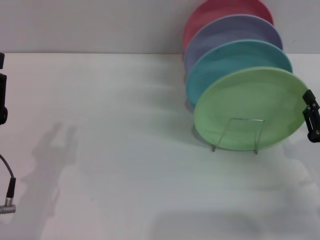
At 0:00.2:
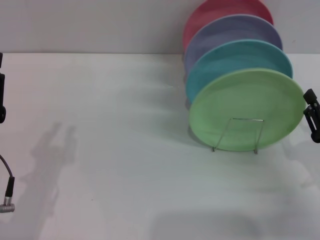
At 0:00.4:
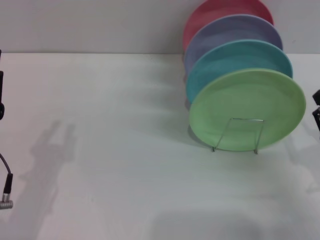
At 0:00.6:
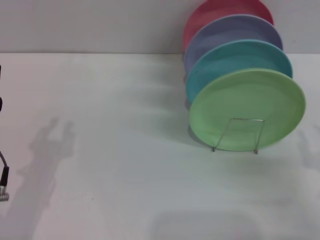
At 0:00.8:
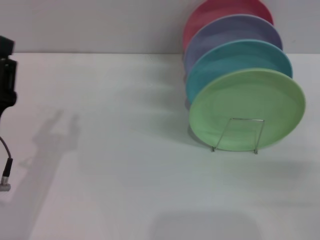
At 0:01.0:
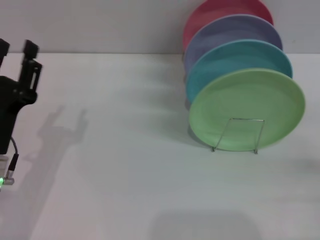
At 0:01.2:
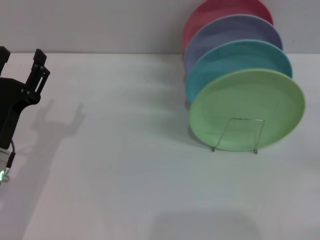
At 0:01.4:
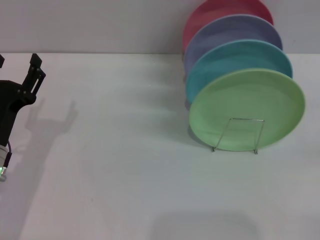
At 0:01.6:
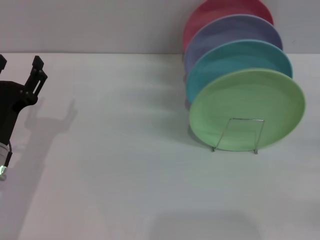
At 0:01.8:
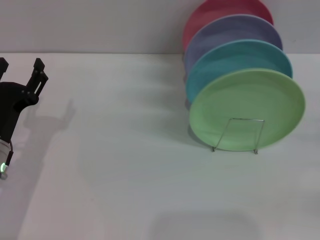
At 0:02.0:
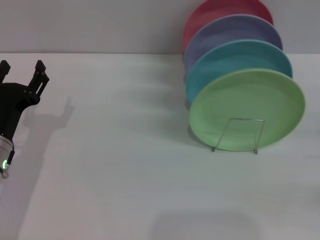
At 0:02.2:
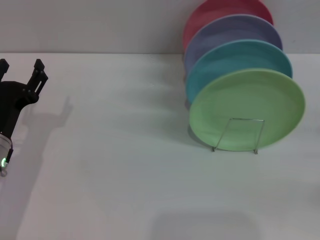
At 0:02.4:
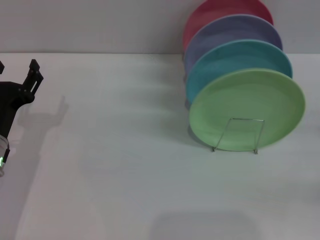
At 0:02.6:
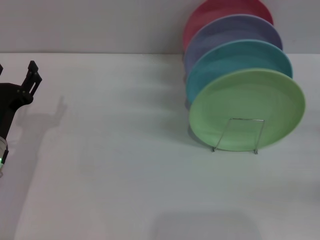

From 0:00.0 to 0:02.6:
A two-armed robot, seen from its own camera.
Task of the whole recording: Grip the plate with one hand, pass it to the other, then set it on the shelf.
From 0:00.0 to 0:01.2: The left gripper is displaced forward by about 5 cm. The right gripper moves to the right, roughly 10 cm, and opens its fingers.
From 0:01.2 to 0:02.6: The right gripper heads forward, covering some 5 cm.

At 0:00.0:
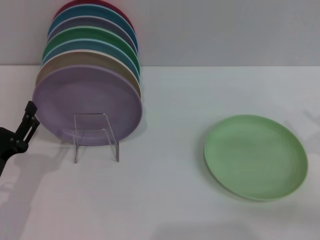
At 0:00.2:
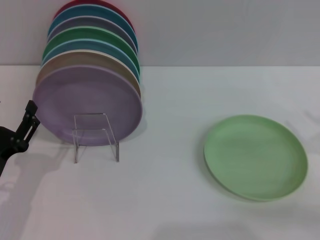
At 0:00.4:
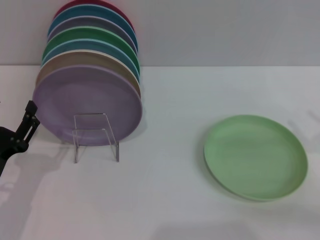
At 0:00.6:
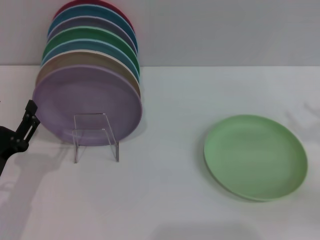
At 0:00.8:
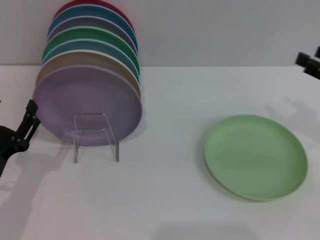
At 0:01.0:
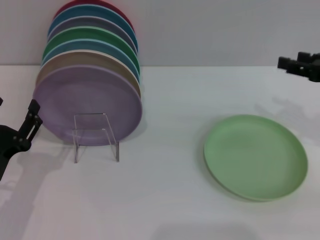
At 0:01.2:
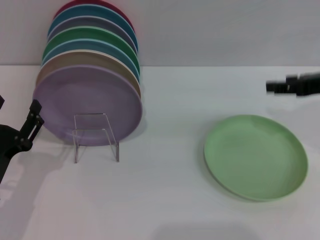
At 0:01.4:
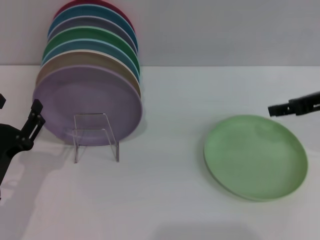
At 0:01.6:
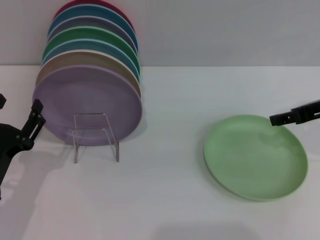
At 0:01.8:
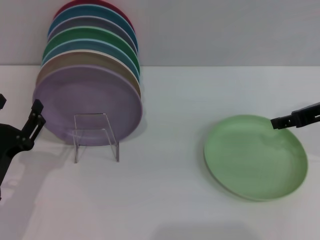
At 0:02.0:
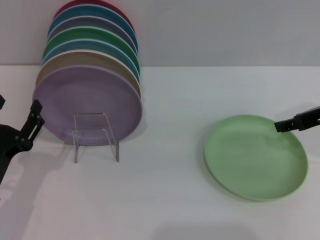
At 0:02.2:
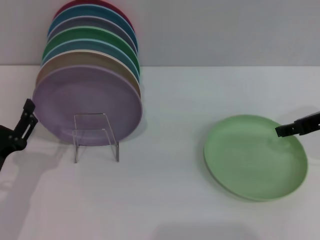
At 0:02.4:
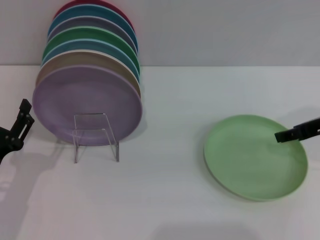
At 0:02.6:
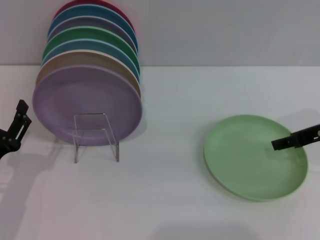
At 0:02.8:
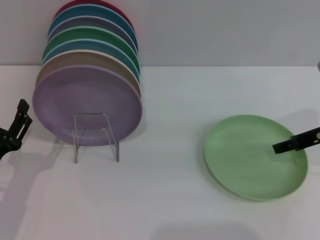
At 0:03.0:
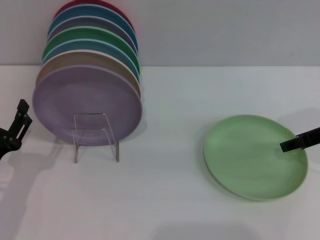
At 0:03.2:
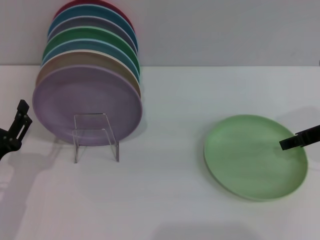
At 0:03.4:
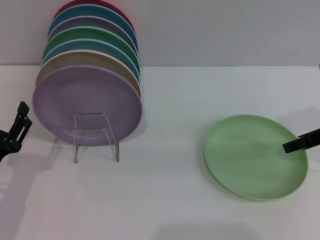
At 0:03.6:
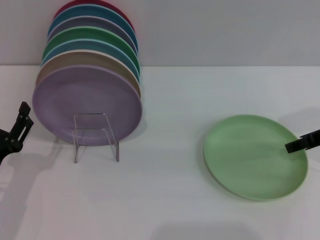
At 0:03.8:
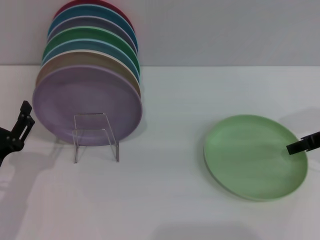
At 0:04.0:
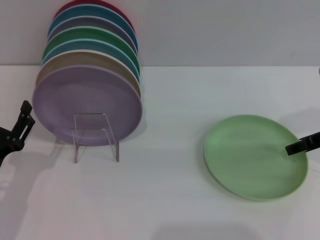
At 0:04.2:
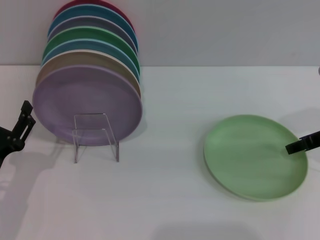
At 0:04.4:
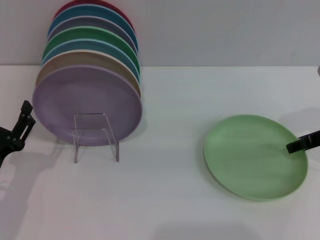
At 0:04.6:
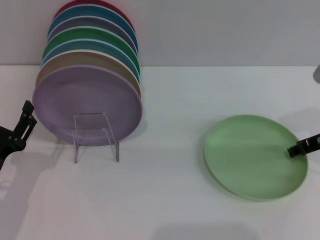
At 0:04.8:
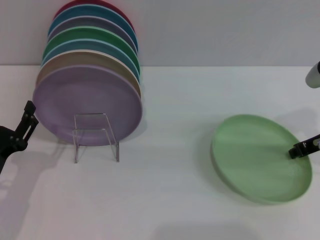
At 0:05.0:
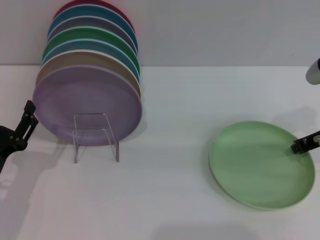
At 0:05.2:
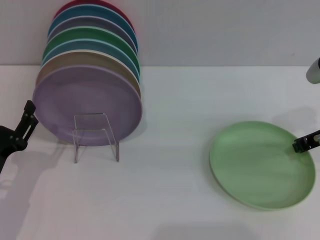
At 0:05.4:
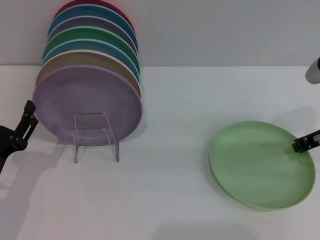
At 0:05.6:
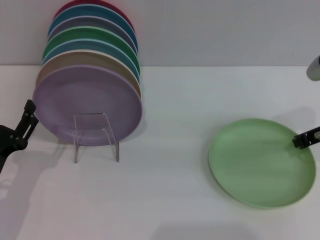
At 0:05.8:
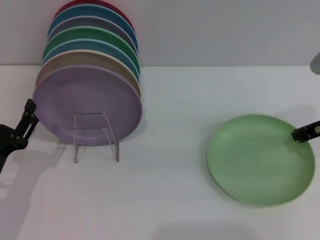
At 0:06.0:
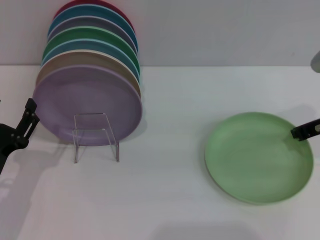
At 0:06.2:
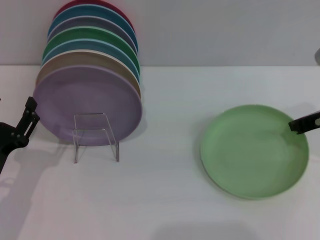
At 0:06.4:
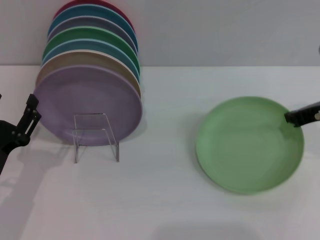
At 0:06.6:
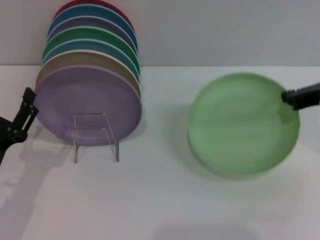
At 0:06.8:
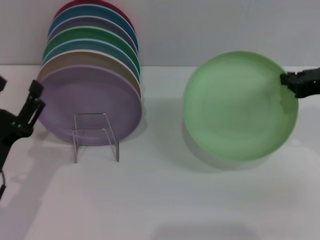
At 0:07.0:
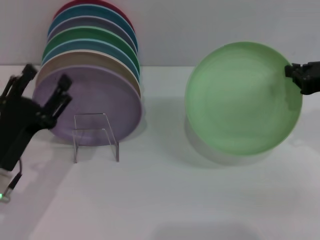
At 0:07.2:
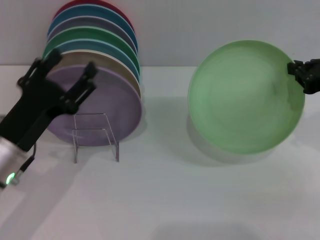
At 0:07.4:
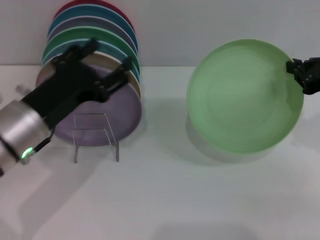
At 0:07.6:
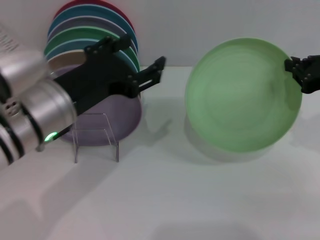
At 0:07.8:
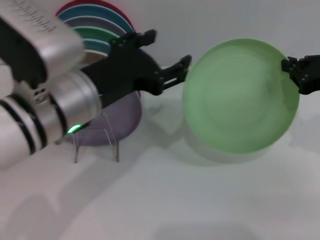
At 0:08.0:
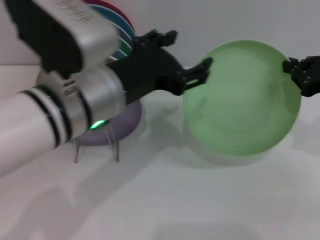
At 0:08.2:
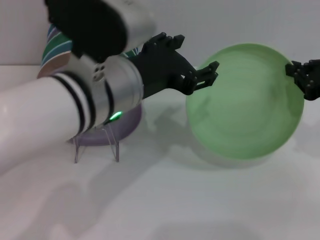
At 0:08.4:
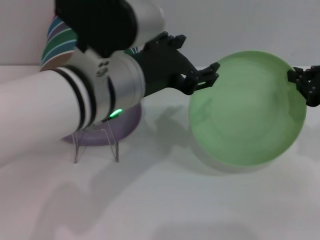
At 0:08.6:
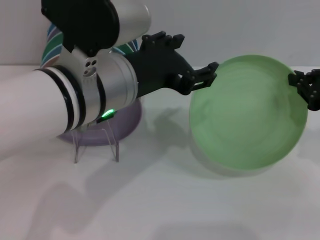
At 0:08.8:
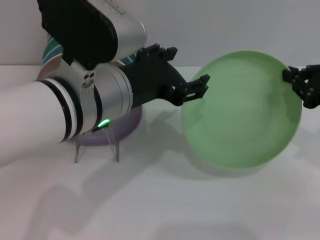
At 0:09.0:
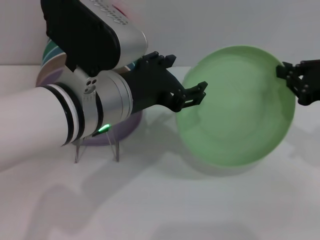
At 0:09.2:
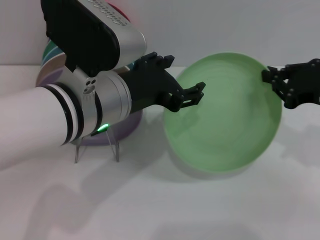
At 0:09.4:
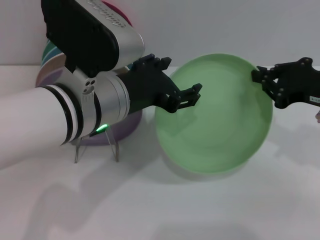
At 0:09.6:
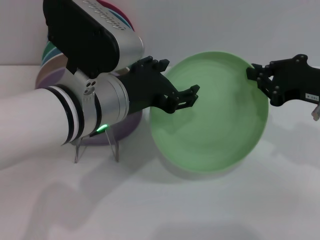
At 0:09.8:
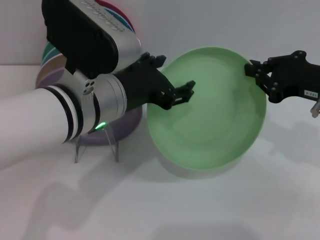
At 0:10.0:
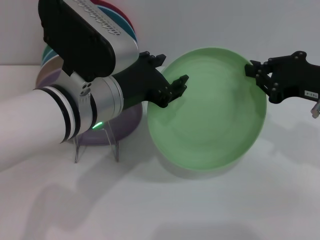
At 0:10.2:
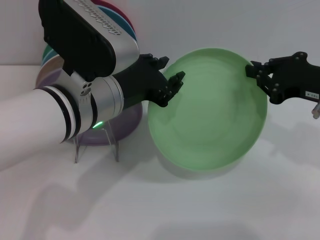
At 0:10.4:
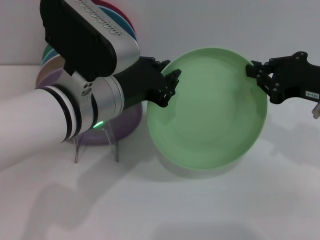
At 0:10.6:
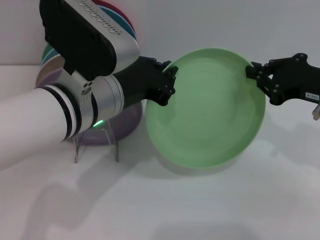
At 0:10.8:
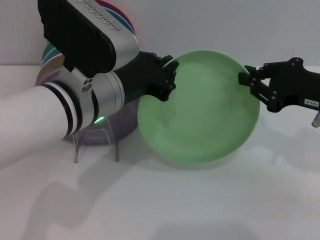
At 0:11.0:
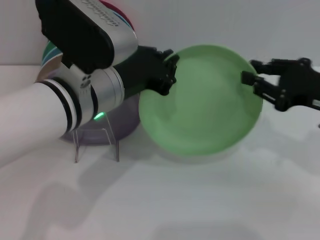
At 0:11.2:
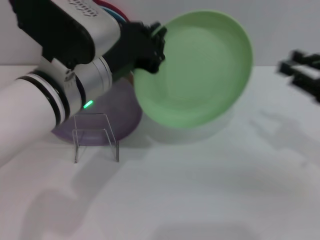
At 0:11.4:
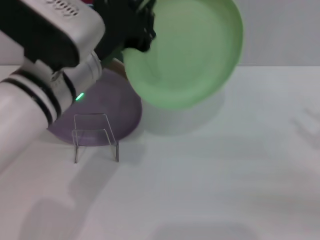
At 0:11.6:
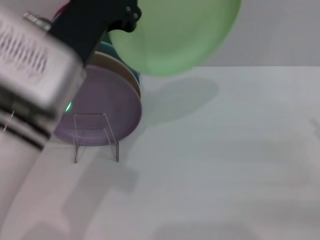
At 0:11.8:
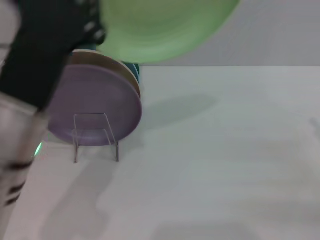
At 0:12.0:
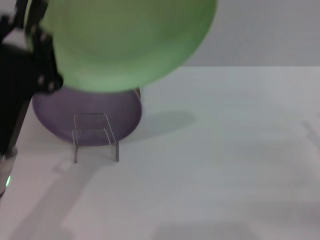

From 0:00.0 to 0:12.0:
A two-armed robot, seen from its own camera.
Task of the whole recording: Grip the plate with one hand, pass it to the other, then set it on the shelf.
Step, from 0:00.0 to 0:06.4: Pick up the plate with the right gripper.
Step, from 0:06.8 to 0:11.0: Pass the plate from the right gripper to the left gripper.
From 0:00.0 to 0:01.6: The right gripper travels forward, upward and to the left by some 15 cm.
From 0:01.6 to 0:04.4: The grippers move only a little.
From 0:04.4 to 0:06.0: The right gripper closes its fingers.
From 0:06.0 to 0:07.6: The right gripper shifts by roughly 5 cm, while the left gripper shifts roughly 20 cm upward and to the right.
From 0:07.6 to 0:09.0: The left gripper travels to the right by roughly 5 cm.
From 0:09.0 to 0:10.4: The left gripper closes.
From 0:10.4 to 0:12.0: The right gripper heads to the right, backward and downward, covering some 15 cm, and opens its fingers, while the left gripper is displaced to the left, downward and backward by approximately 15 cm.

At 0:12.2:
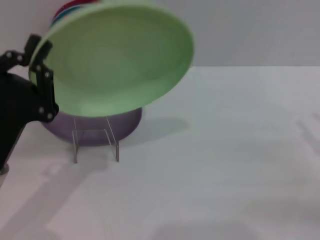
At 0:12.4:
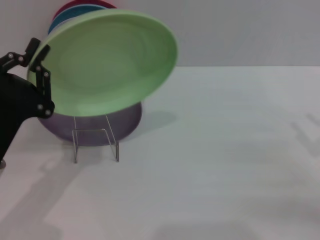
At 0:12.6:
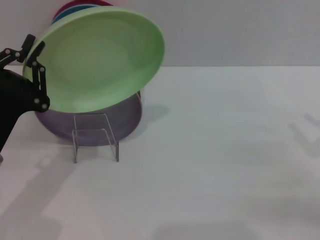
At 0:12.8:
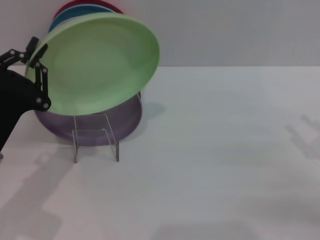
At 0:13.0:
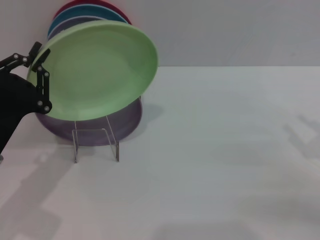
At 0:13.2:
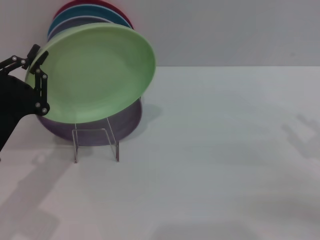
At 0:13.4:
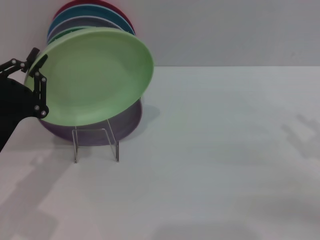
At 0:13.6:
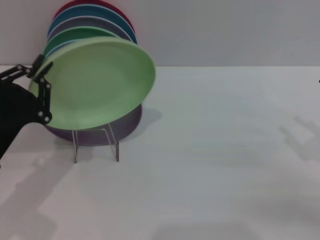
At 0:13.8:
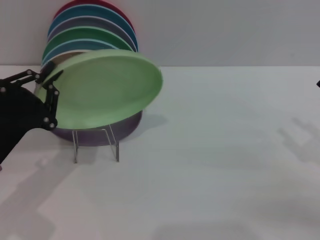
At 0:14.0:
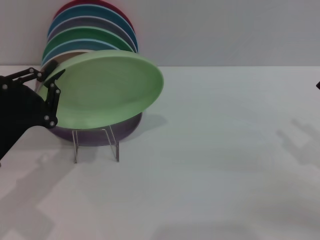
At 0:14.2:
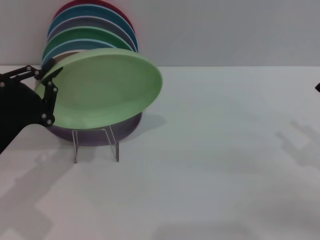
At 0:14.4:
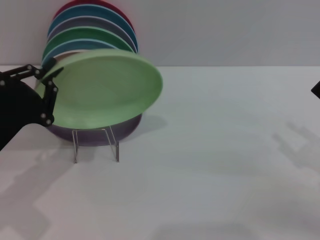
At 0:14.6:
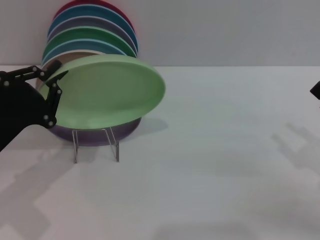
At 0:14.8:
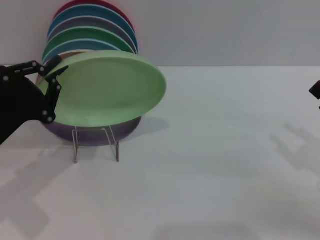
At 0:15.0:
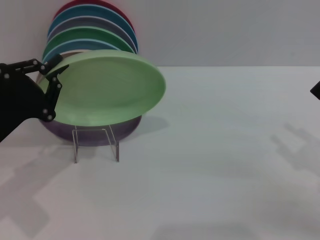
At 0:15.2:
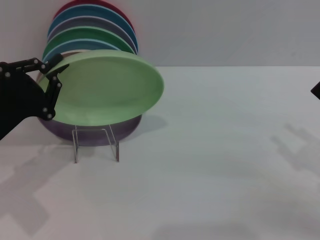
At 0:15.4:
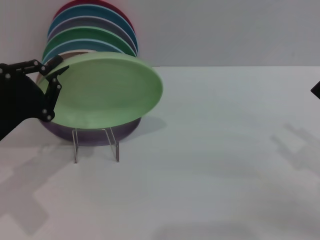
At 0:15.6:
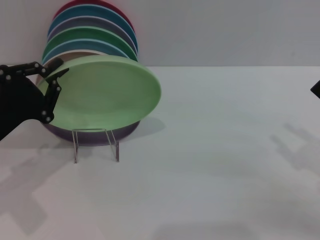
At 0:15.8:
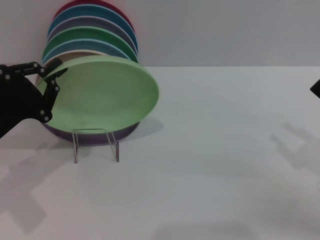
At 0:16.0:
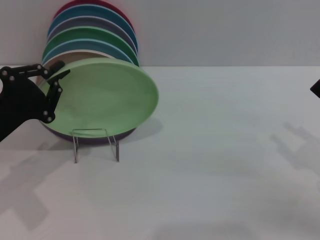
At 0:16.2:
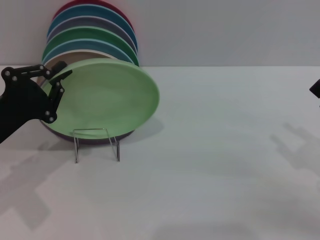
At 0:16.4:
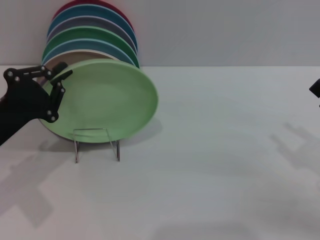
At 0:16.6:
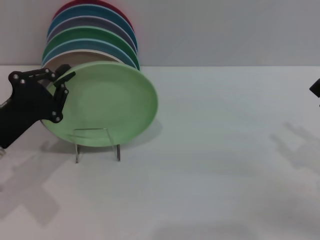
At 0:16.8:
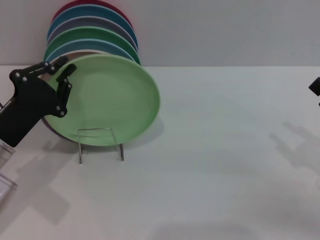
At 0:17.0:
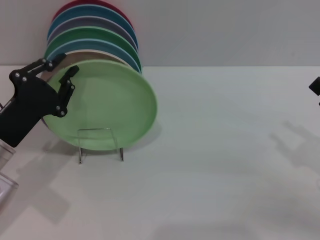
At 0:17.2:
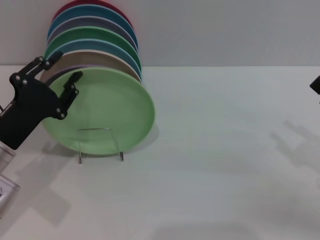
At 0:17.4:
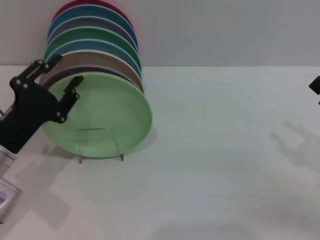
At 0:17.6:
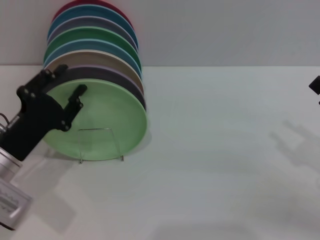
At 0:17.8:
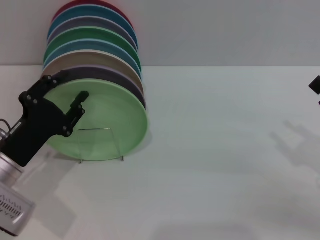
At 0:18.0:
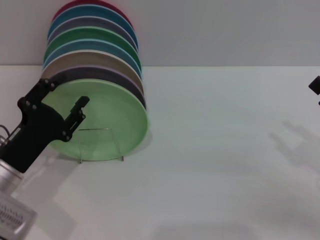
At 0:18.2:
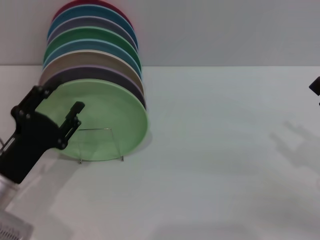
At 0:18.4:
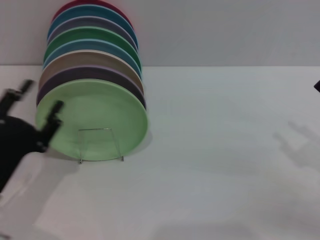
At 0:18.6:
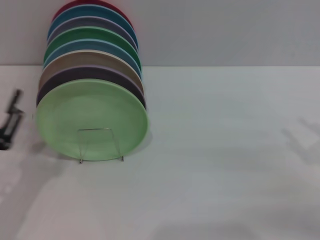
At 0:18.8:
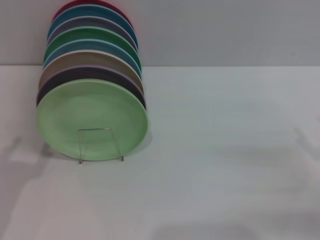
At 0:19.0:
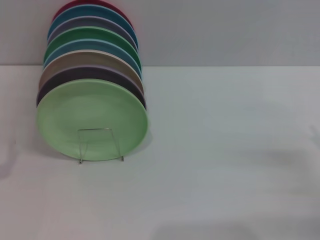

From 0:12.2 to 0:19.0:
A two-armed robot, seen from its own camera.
Task of the whole recording: Grip the plate with one hand, pass it to the other, then set it on the shelf.
Step, from 0:12.2 to 0:18.2: Place the plate on the shelf with the left gripper.
From 0:12.2 to 0:13.6: The grippers stay close to where they were, moving slightly.
From 0:13.6 to 0:16.2: There are only small adjustments of the grippers.
From 0:16.2 to 0:17.6: The left gripper opens its fingers.
From 0:17.6 to 0:19.0: The left gripper heads backward and to the left, covering some 10 cm, and opens up.
